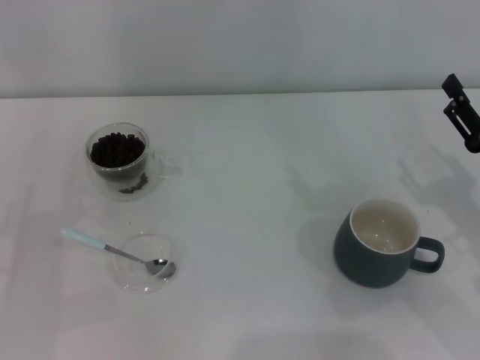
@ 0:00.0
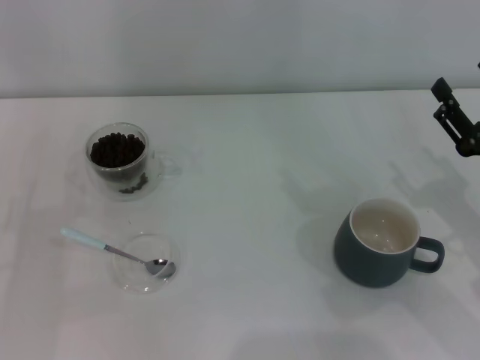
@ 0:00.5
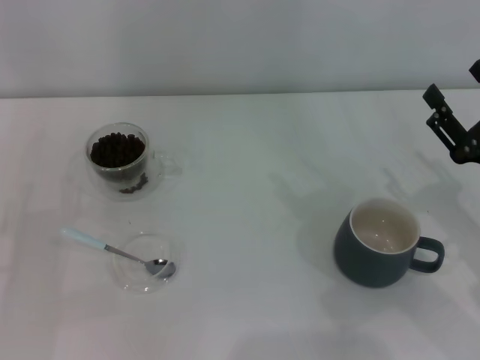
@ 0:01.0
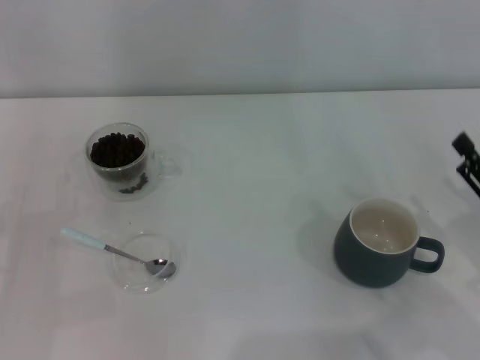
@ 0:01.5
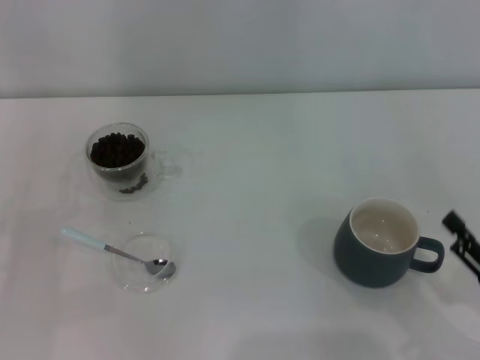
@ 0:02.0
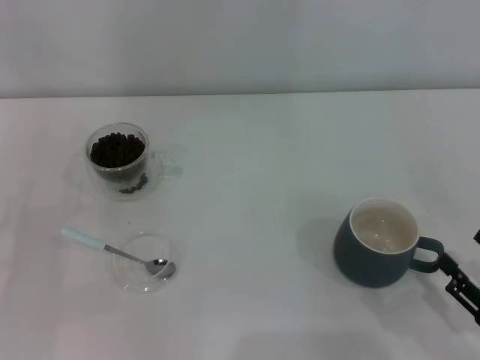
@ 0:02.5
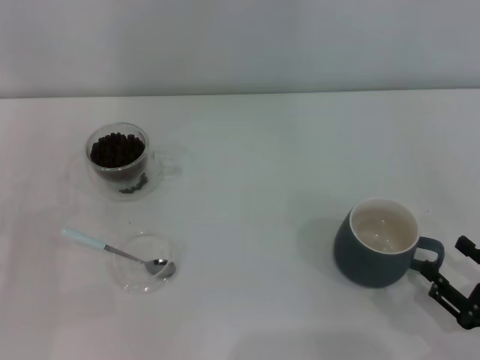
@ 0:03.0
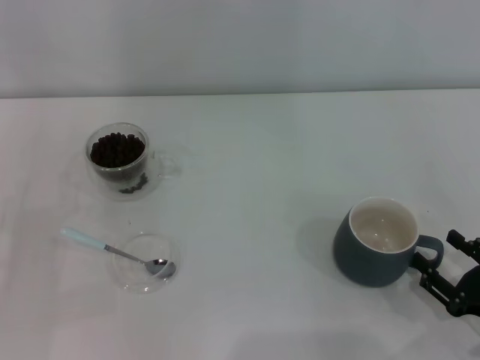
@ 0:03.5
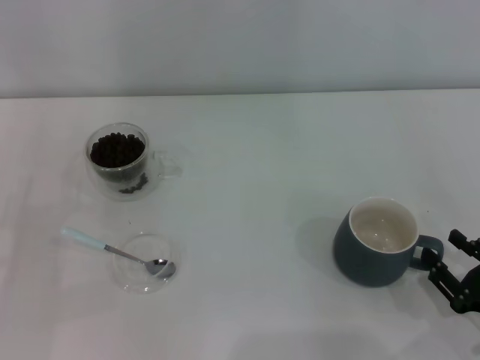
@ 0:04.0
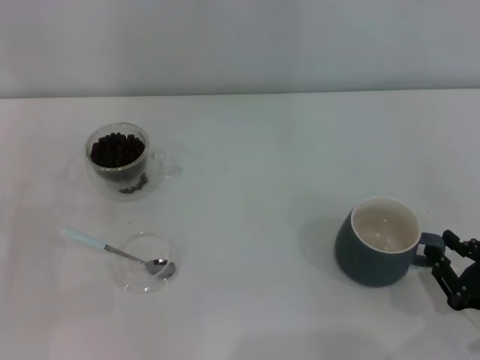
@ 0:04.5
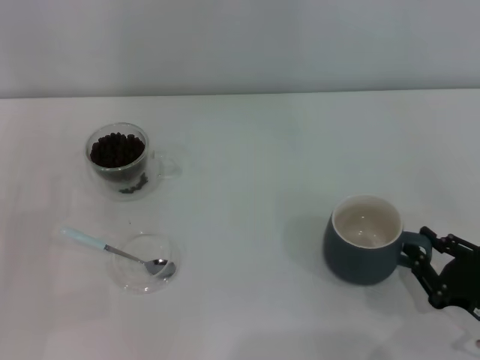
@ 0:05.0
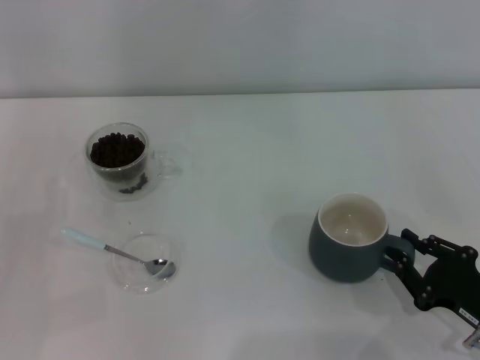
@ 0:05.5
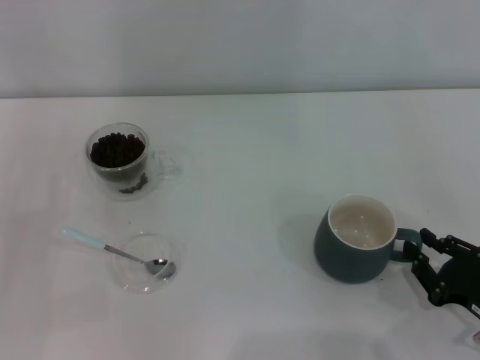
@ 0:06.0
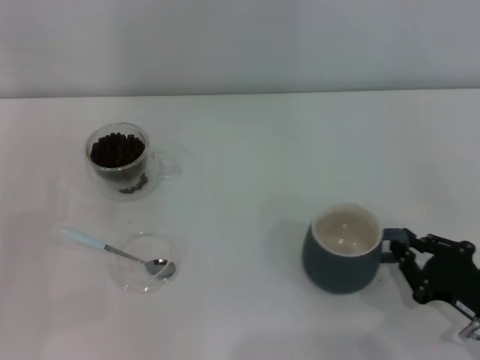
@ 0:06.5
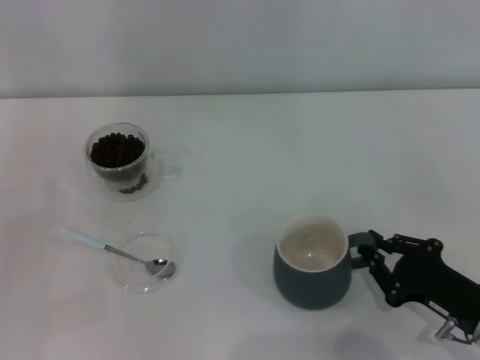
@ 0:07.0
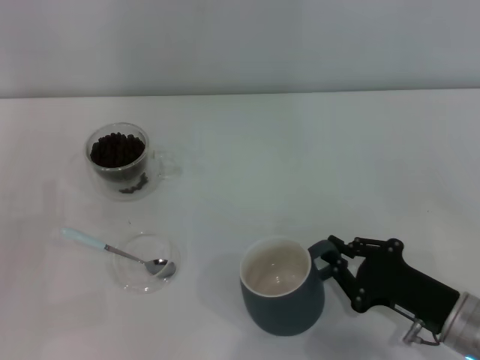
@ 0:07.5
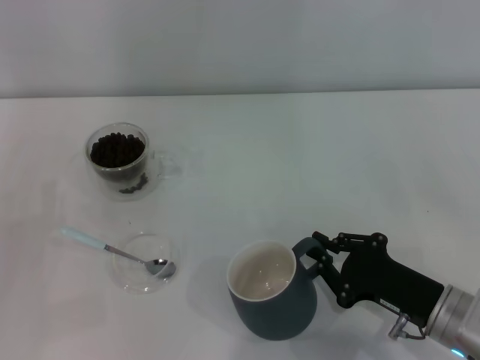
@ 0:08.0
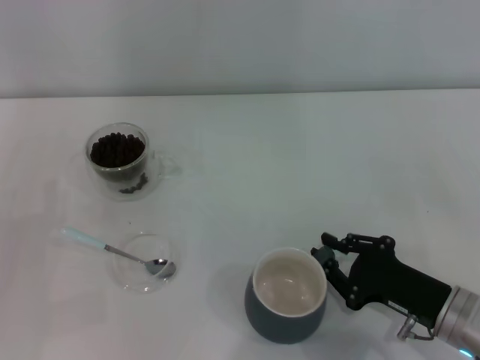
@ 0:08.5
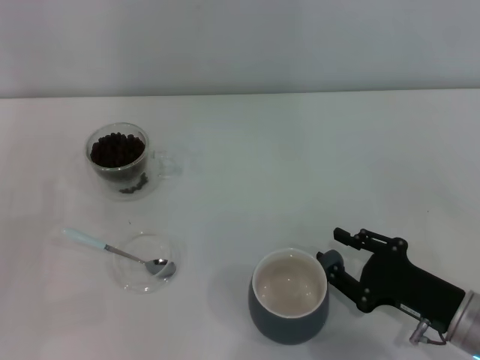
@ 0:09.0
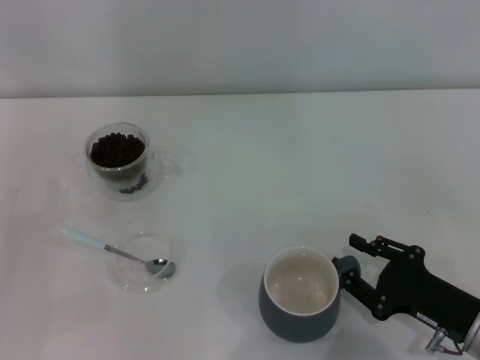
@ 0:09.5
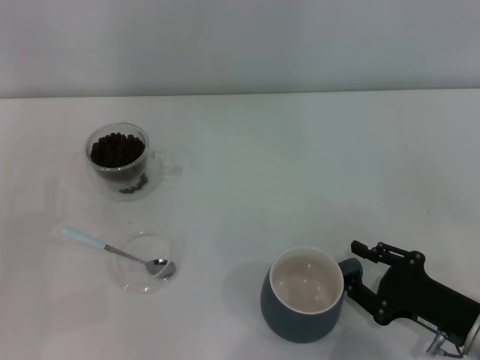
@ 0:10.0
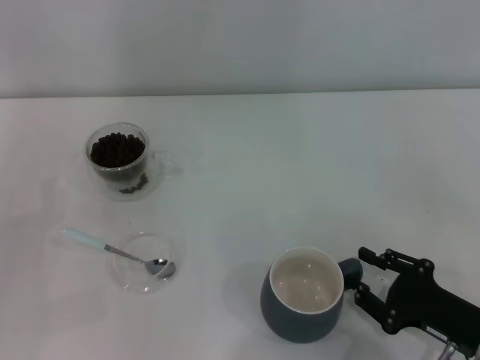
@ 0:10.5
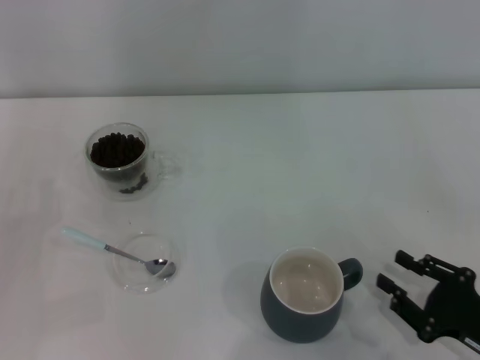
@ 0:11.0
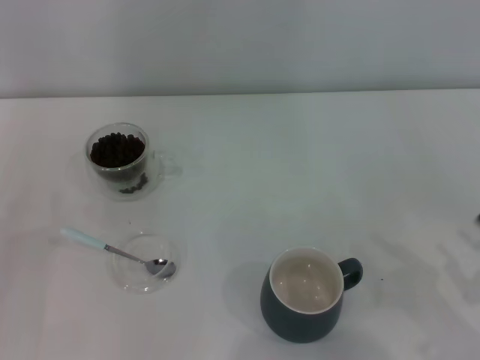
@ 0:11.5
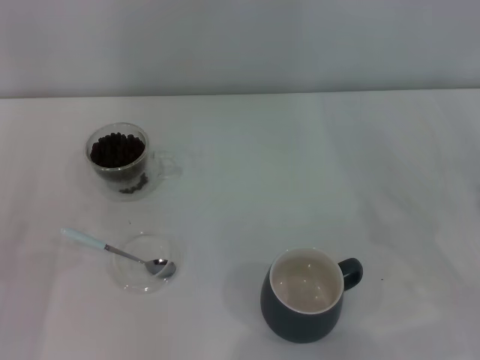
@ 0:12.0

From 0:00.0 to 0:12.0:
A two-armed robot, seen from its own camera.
Task of the whole recording: Use a blue spoon to take out the coffee beans from the glass and pour them into the gray cup.
Step, from 0:00.0 to 0:10.5: Move the cup to the center of view with the left gripper.
From 0:00.0 to 0:02.0: The right gripper moves backward, some 10 cm.
From 0:02.0 to 0:04.0: There are only small adjustments of the grippers.
From 0:04.0 to 0:06.0: The right gripper closes its fingers.
From 0:06.0 to 0:08.0: The right gripper goes about 10 cm to the left.
From 0:08.0 to 0:10.0: The right gripper opens up.
From 0:10.0 to 0:12.0: The right gripper travels to the right and upward by roughly 10 cm.

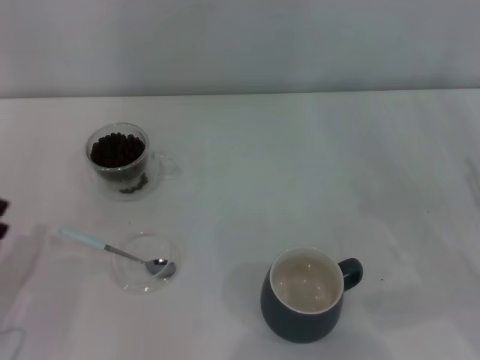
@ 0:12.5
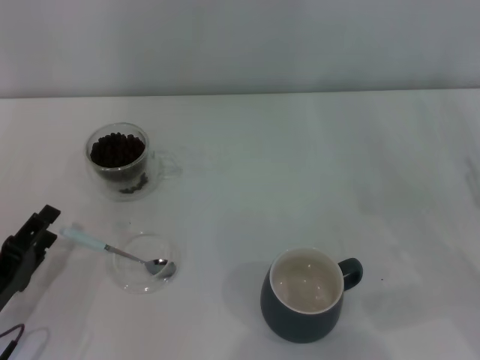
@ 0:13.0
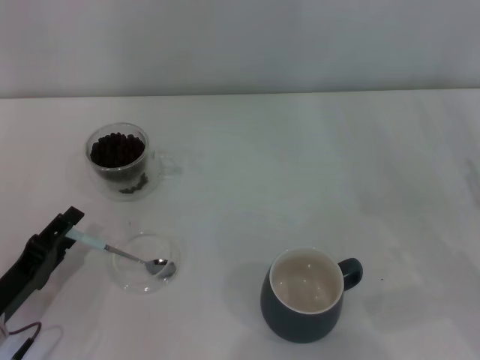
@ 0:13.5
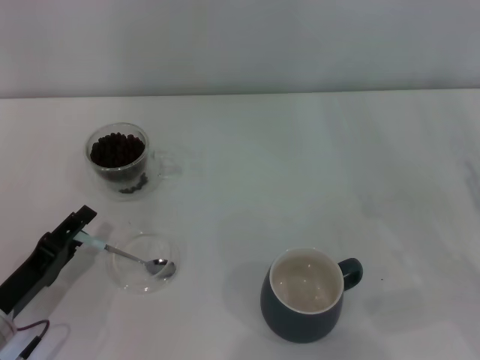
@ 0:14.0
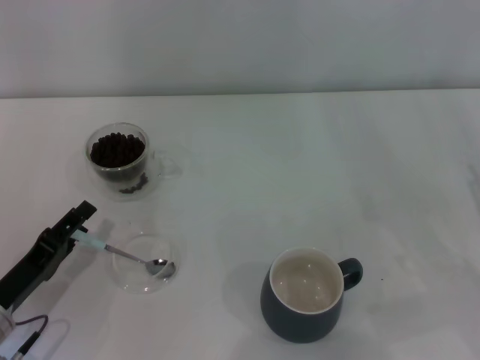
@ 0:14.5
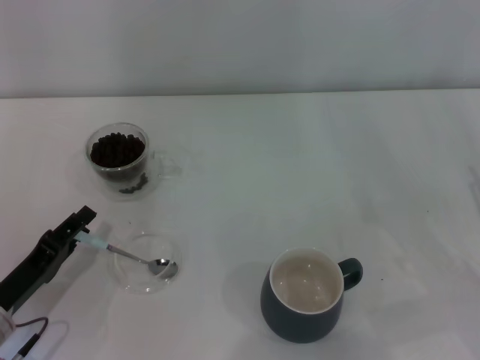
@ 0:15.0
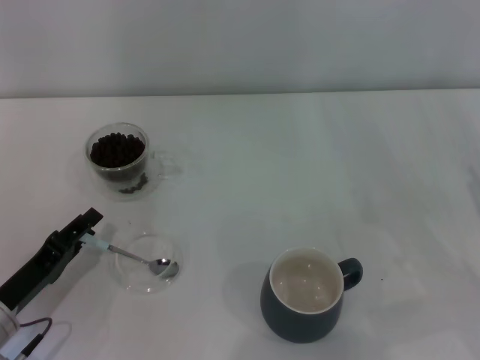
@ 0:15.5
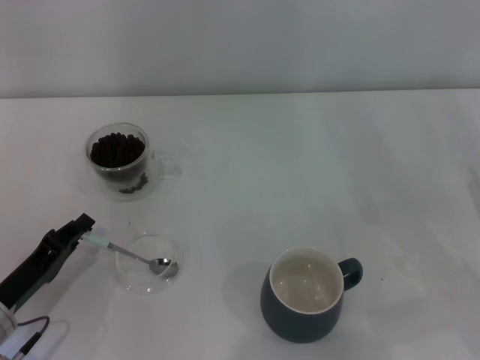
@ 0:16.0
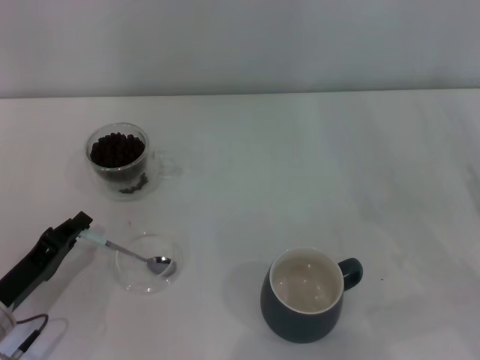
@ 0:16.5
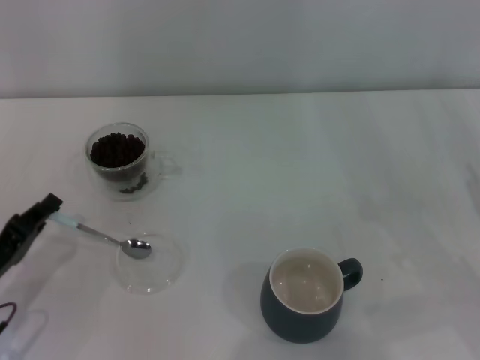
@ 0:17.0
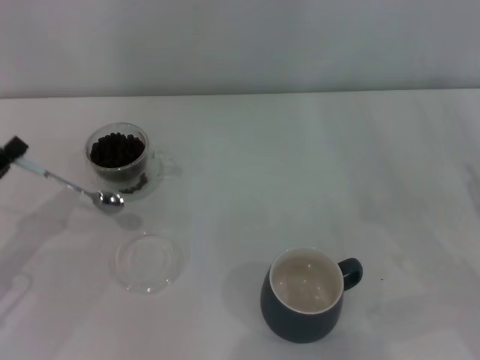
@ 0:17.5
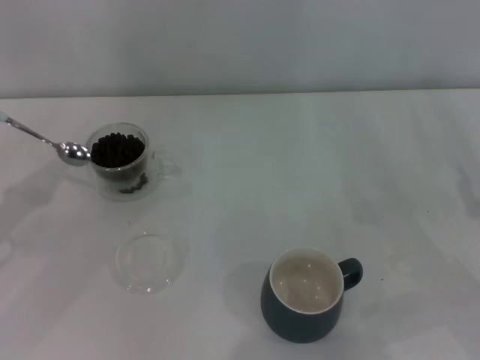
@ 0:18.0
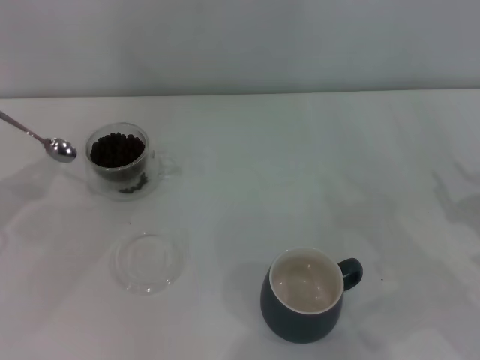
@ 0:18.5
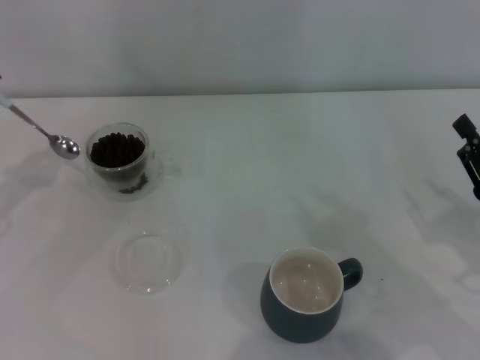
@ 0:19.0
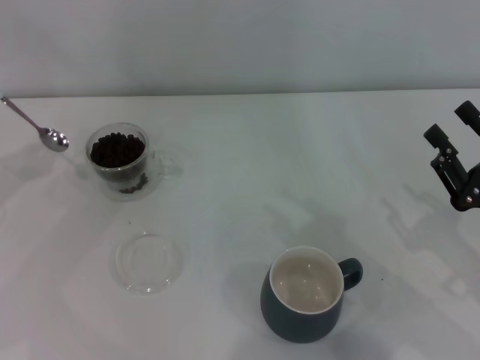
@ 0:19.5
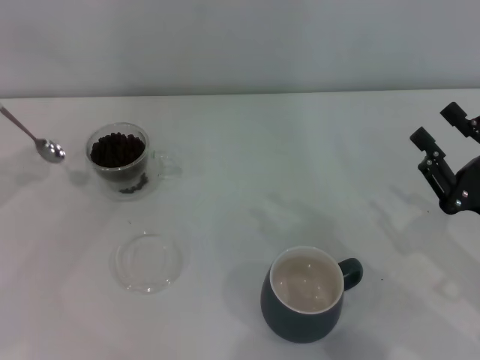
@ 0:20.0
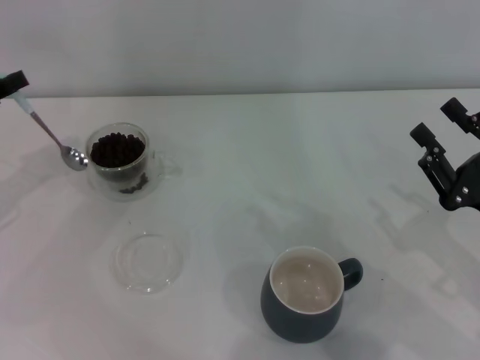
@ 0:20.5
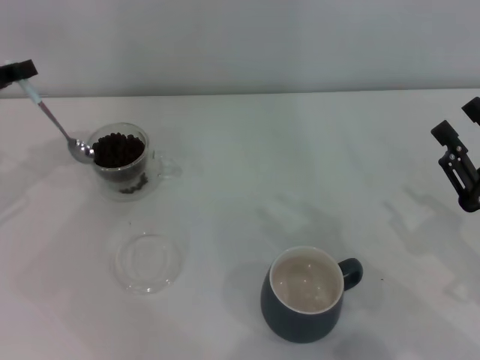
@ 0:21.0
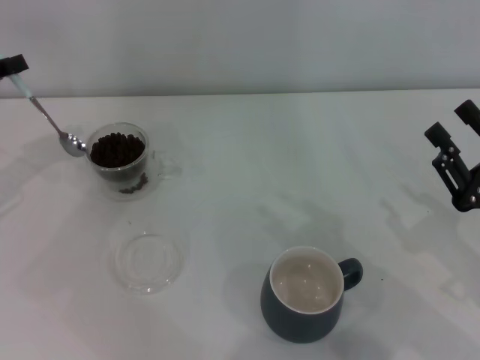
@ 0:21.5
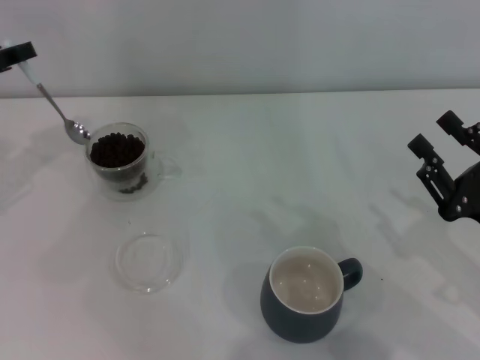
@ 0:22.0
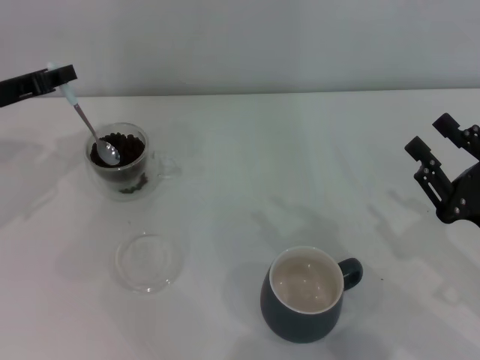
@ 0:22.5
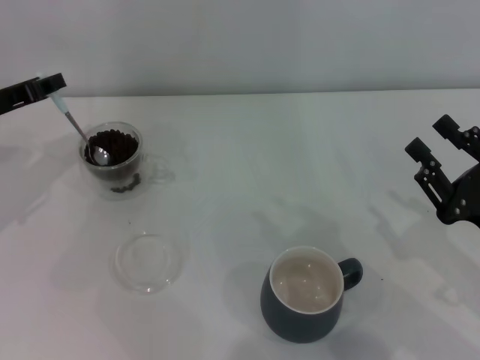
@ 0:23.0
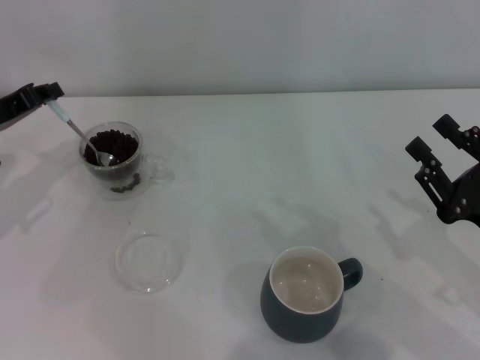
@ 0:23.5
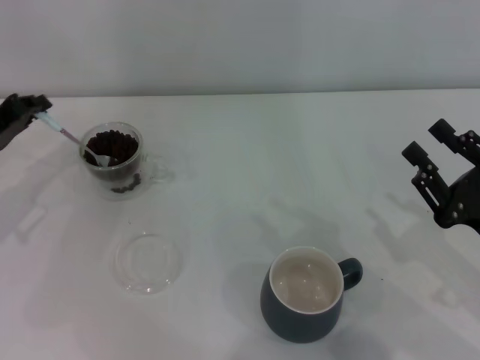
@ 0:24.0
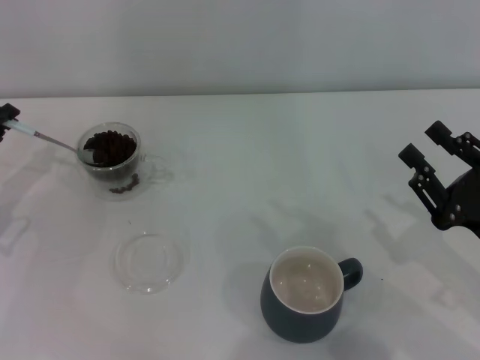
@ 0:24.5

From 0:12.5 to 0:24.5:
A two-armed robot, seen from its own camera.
Task of the whole recording: Use a blue spoon to take out the coffee beans from the glass and pour them into the gray cup.
Step, from 0:12.5 to 0:17.0: Pick up the spoon with the right gripper.
From 0:12.5 to 0:14.5: The grippers move only a little.
From 0:14.5 to 0:16.5: The left gripper closes its fingers.
From 0:16.5 to 0:18.5: The left gripper is displaced upward, to the left and forward by roughly 15 cm.
From 0:18.5 to 0:20.5: The left gripper is displaced forward by roughly 5 cm.
From 0:20.5 to 0:22.5: The left gripper ends up about 5 cm from where it was.
From 0:22.5 to 0:24.5: The left gripper shifts about 10 cm downward and backward.

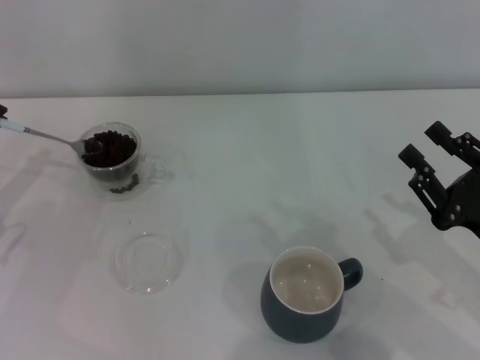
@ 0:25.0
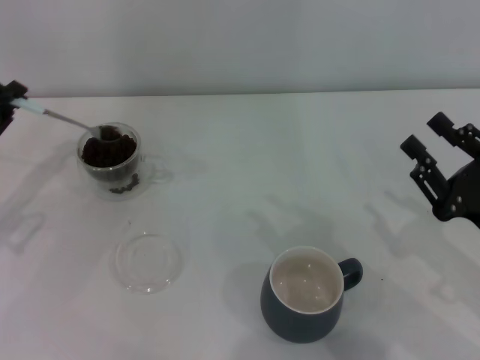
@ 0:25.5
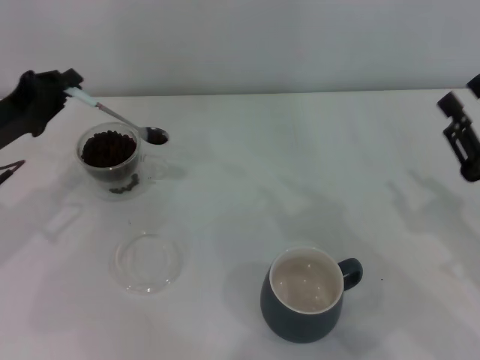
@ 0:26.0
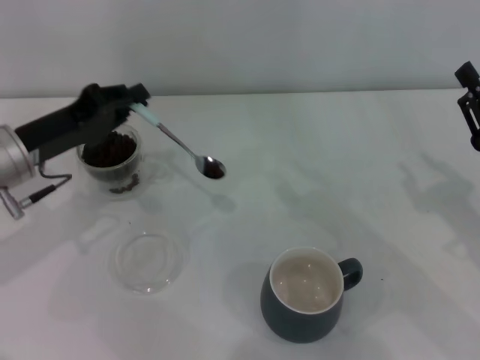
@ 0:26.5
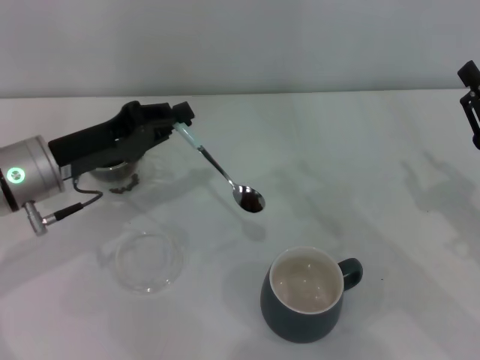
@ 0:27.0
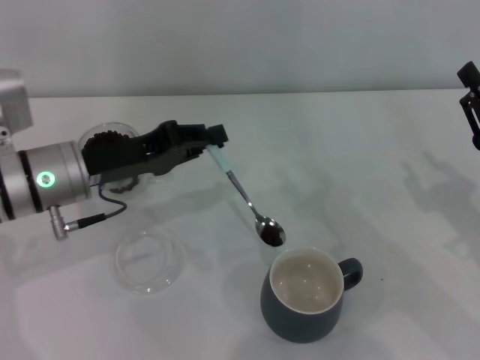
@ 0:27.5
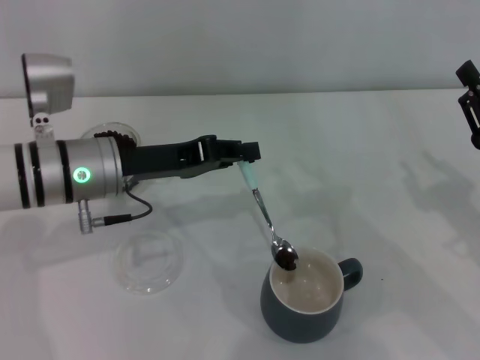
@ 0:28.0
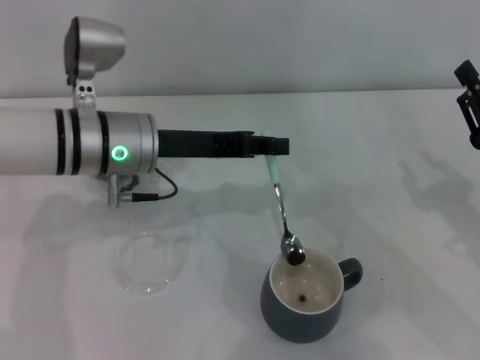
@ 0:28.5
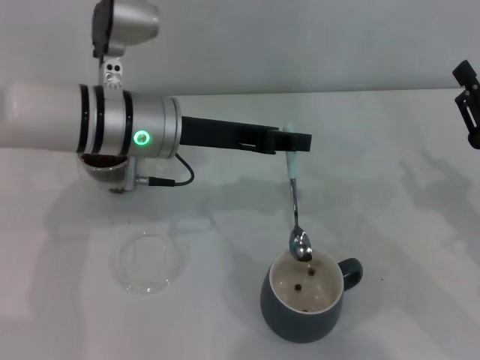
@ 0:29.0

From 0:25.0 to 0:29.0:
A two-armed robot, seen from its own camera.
Task of the whole recording: Use a blue spoon to take out the coffee beans from the glass and pour them into the gray cup.
From 0:25.0 to 0:27.0: The left gripper is displaced to the right by approximately 15 cm.
From 0:27.0 to 0:29.0: The left gripper moves to the right, roughly 10 cm.
